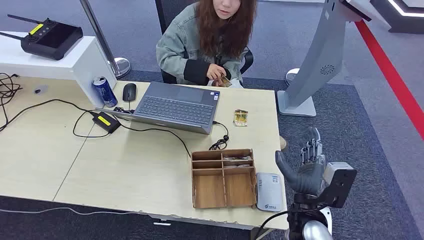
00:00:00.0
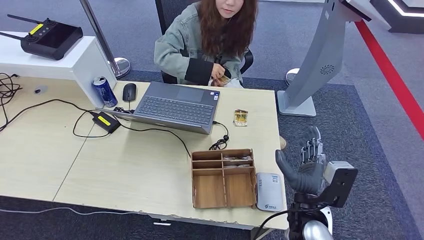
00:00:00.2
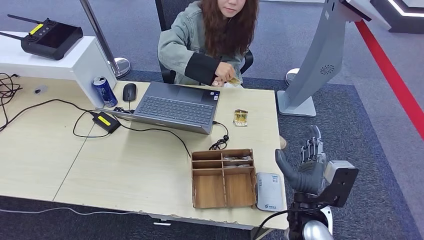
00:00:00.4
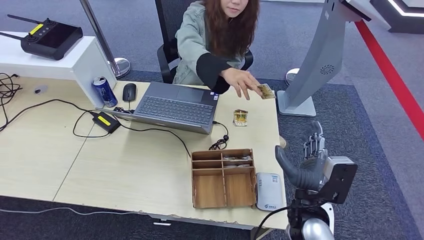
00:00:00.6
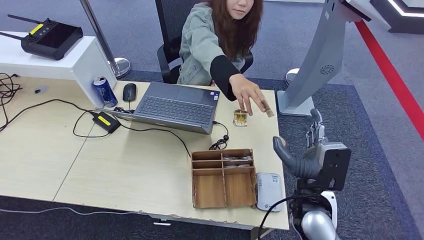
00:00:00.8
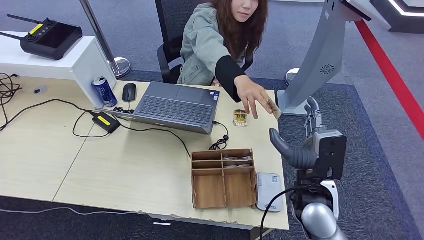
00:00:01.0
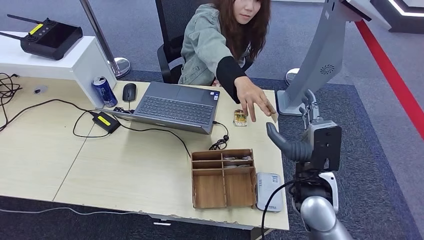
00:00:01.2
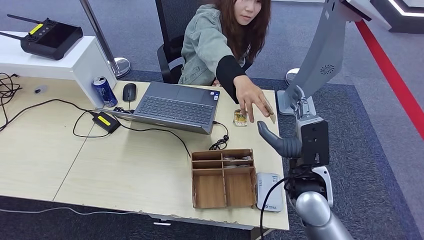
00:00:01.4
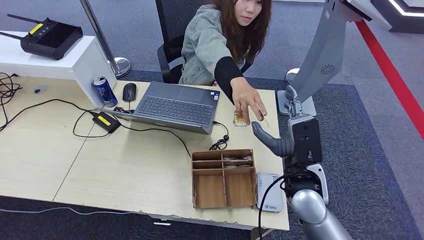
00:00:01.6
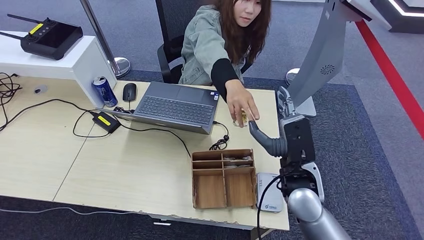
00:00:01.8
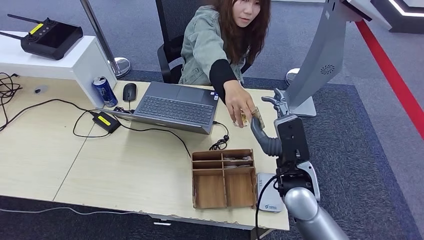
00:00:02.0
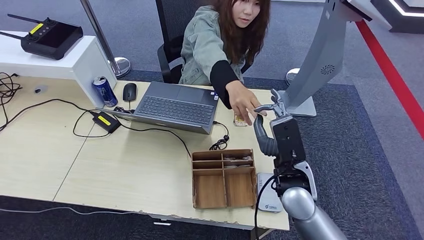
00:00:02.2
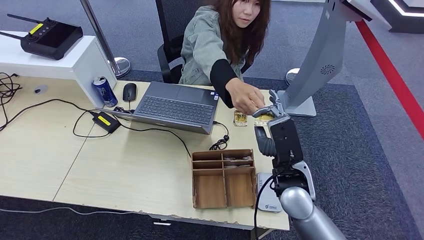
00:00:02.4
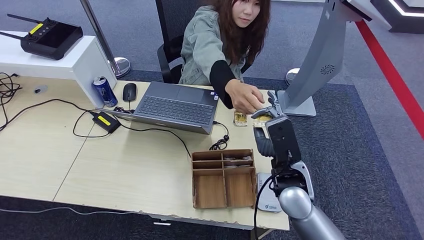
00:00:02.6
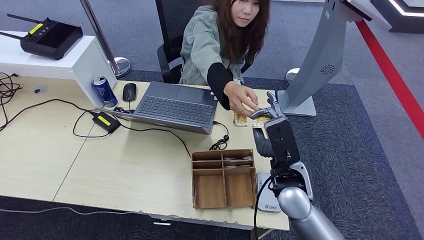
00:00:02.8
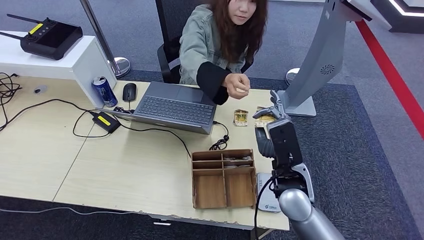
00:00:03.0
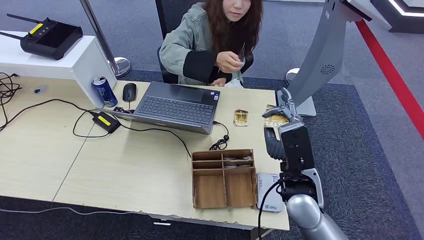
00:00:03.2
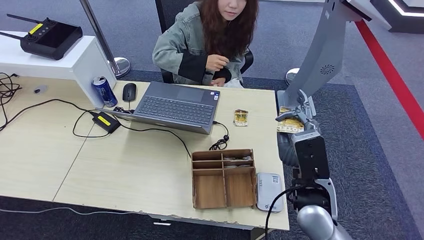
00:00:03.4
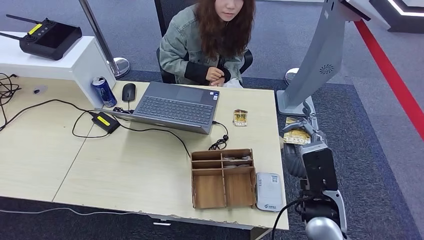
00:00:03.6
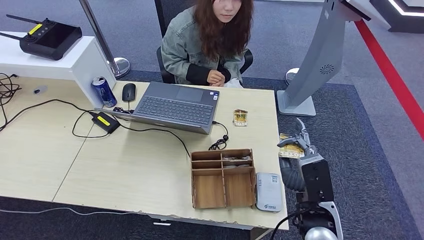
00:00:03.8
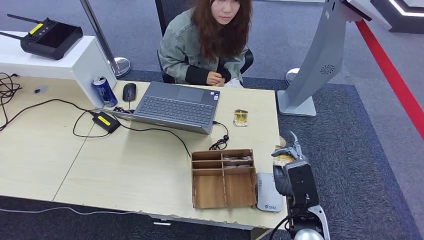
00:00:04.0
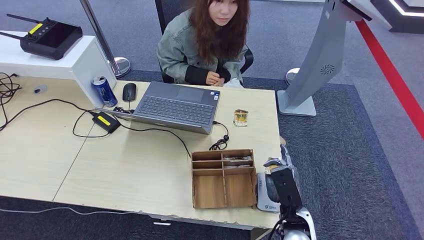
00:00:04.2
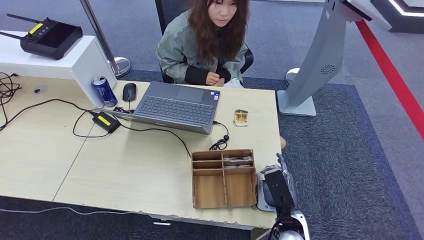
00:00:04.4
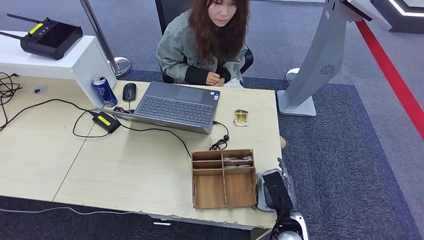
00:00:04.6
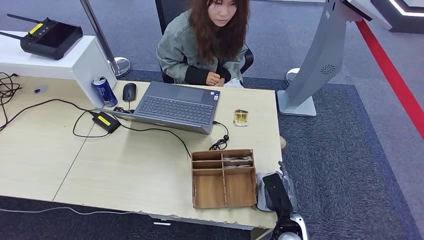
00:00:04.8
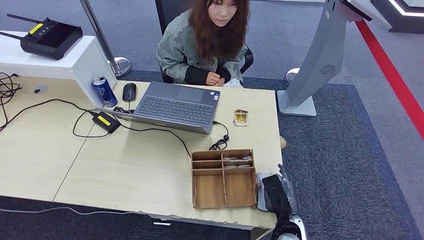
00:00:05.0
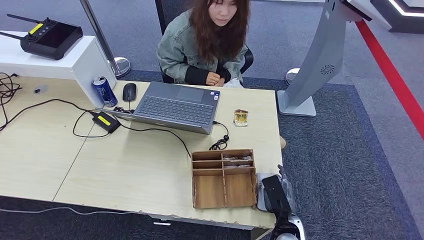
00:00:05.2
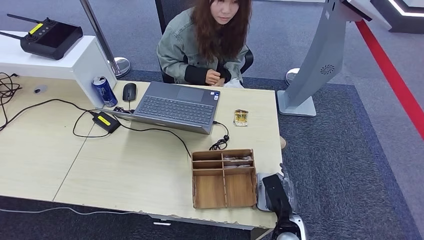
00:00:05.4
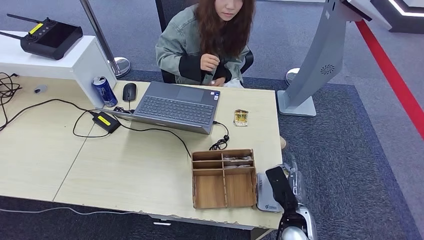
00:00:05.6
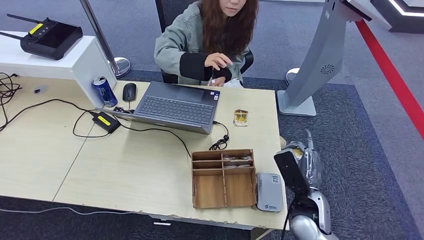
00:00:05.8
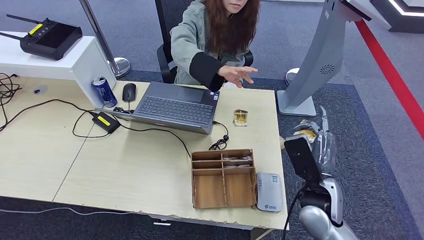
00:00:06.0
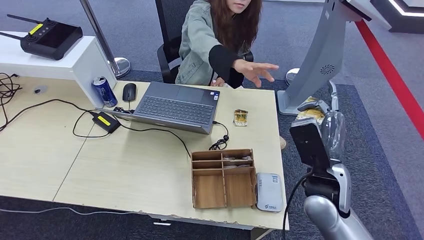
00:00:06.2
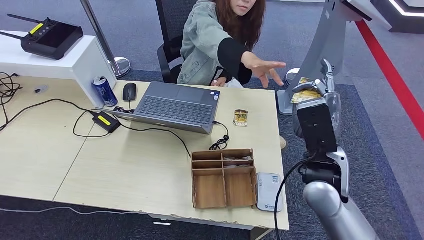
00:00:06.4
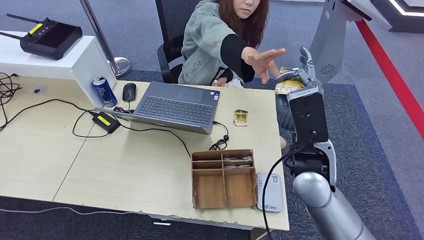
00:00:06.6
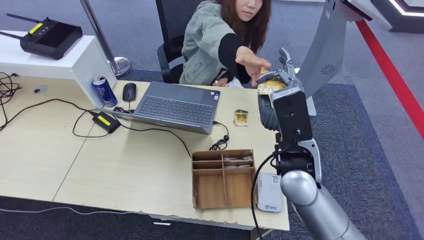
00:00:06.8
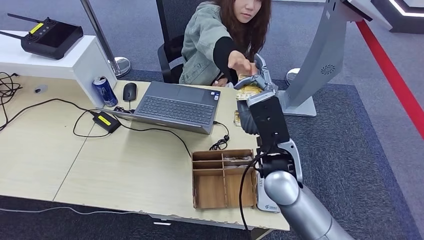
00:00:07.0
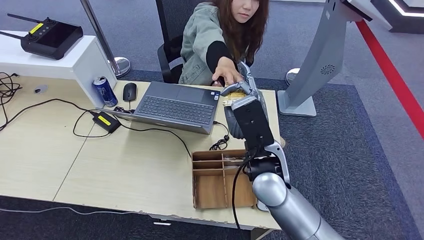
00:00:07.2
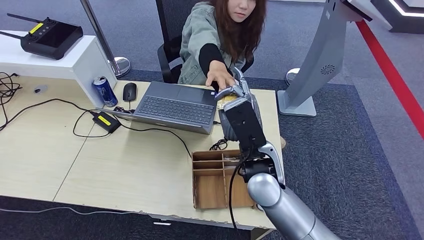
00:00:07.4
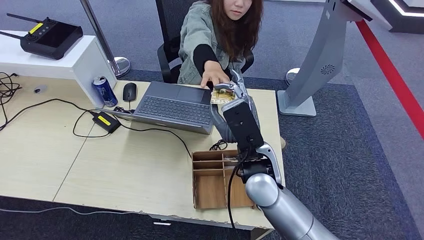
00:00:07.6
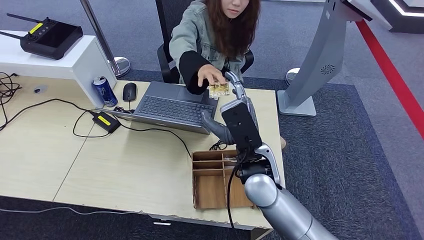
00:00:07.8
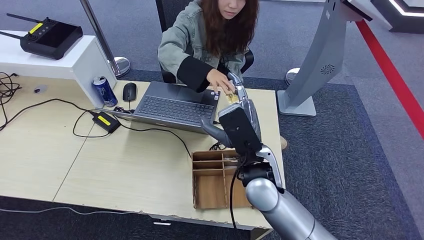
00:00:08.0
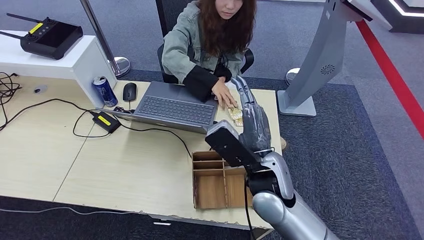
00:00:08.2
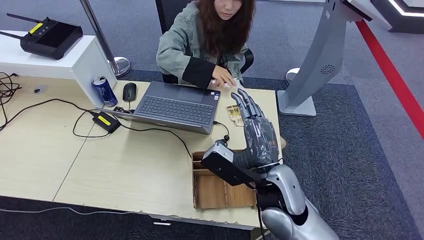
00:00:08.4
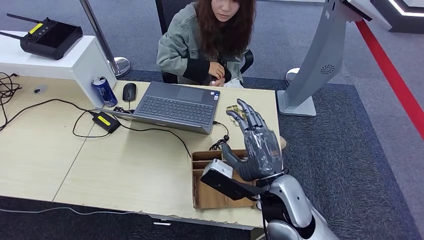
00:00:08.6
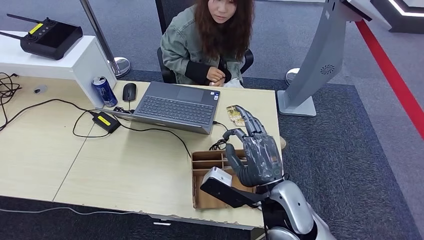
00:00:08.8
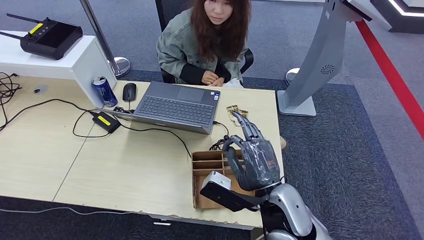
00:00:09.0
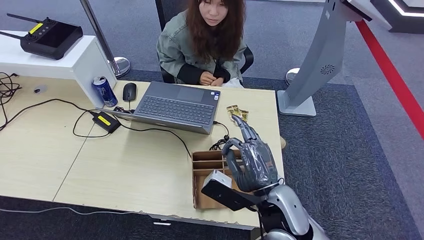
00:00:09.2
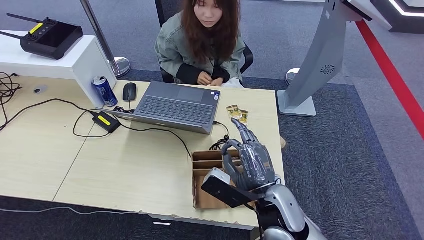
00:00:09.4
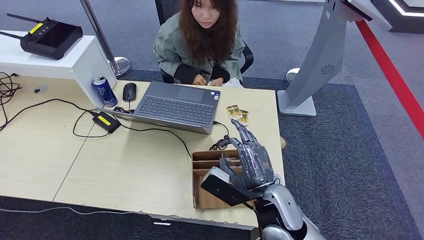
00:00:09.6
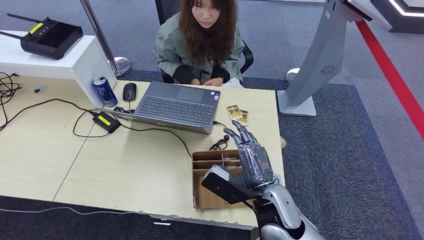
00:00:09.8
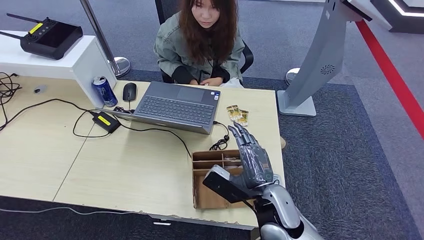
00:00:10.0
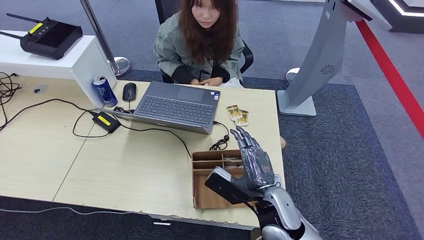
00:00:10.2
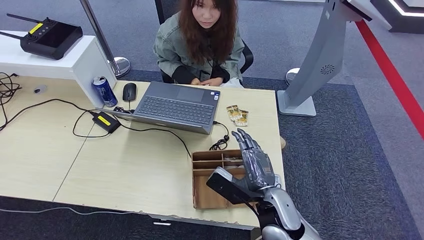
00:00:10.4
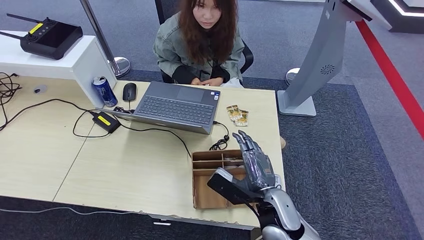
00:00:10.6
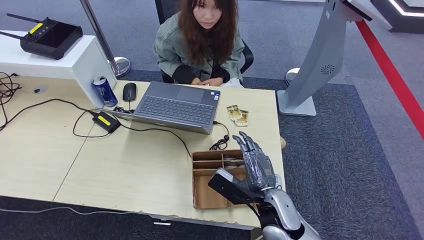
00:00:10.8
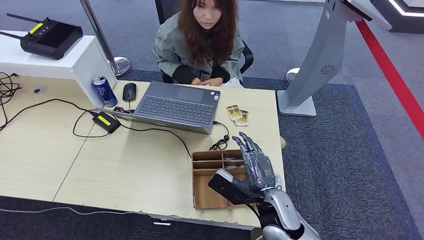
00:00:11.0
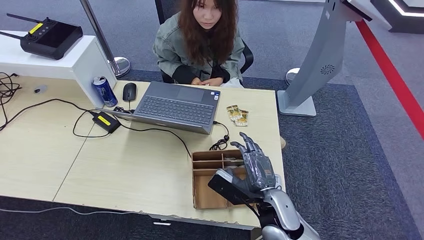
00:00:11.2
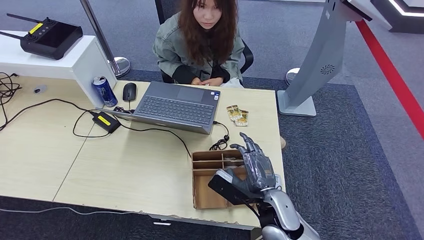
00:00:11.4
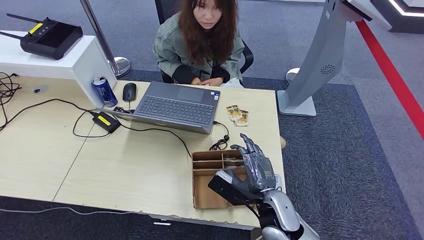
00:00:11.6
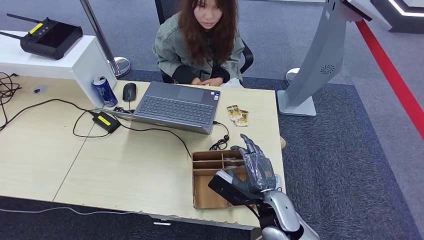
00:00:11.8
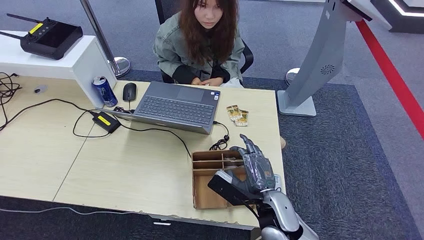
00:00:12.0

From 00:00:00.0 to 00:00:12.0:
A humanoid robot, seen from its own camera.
Step, from 00:00:00.0 to 00:00:03.0: Take the ID card from the person's hand.
Step, from 00:00:03.2 to 00:00:06.0: Place the ID card on the card reader.
Step, from 00:00:06.2 to 00:00:08.2: Hand the ID card to the person.
From 00:00:01.6 to 00:00:03.0: There are only small adjustments of the hands.
From 00:00:03.0 to 00:00:04.4: The right hand shifts about 15 cm downward and backward.
From 00:00:04.4 to 00:00:06.0: The right hand travels upward and forward by roughly 15 cm.
From 00:00:06.0 to 00:00:07.6: The right hand is displaced to the left and upward by some 20 cm.
From 00:00:07.6 to 00:00:09.0: The right hand moves backward, some 10 cm.
From 00:00:09.0 to 00:00:10.4: The right hand shifts about 5 cm downward.
From 00:00:10.4 to 00:00:12.0: The hands move only a little.

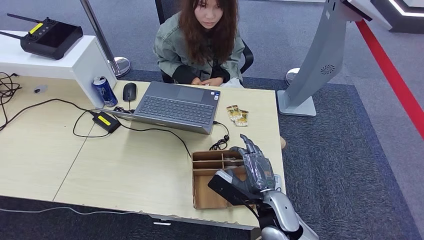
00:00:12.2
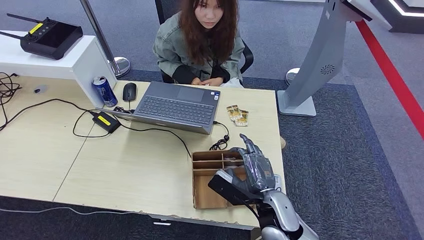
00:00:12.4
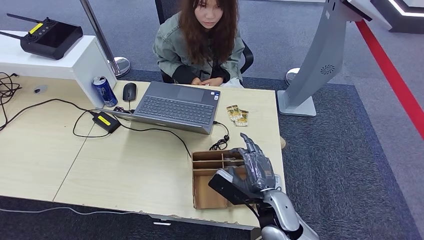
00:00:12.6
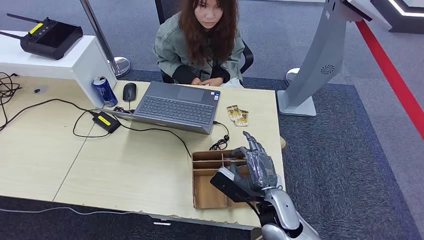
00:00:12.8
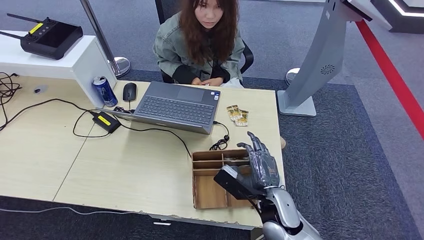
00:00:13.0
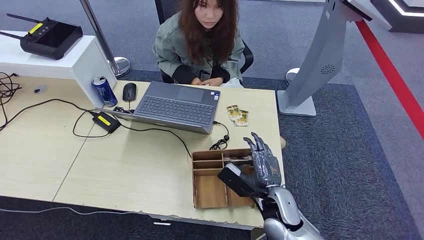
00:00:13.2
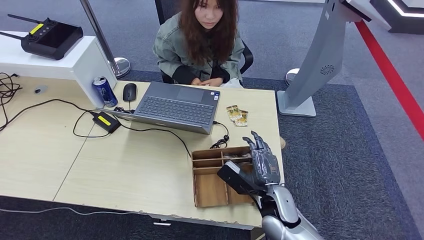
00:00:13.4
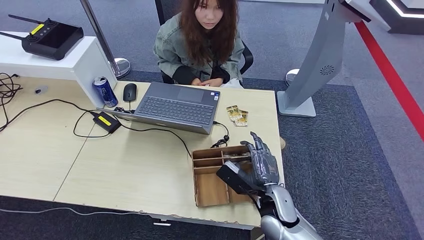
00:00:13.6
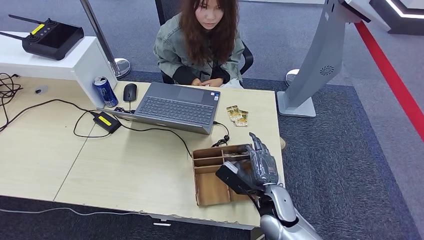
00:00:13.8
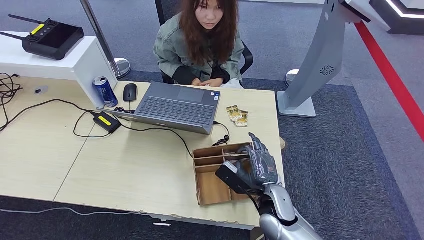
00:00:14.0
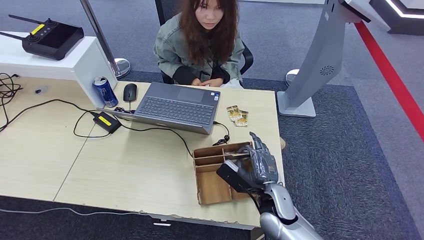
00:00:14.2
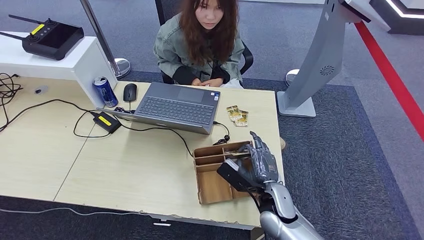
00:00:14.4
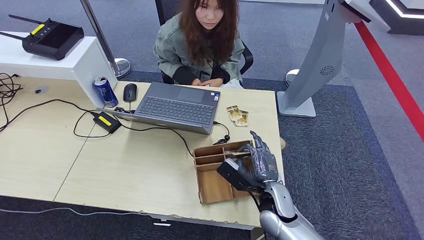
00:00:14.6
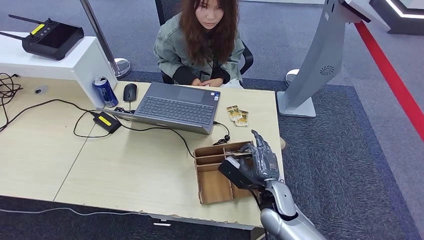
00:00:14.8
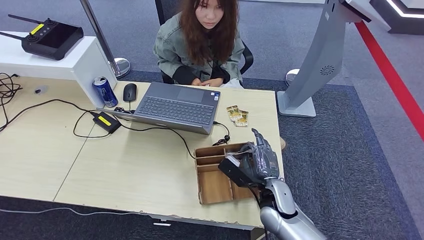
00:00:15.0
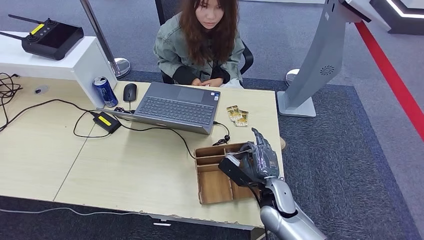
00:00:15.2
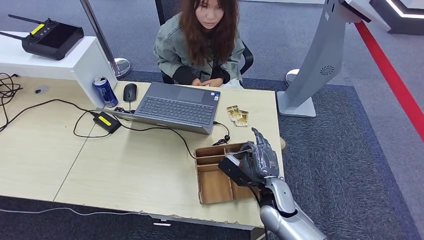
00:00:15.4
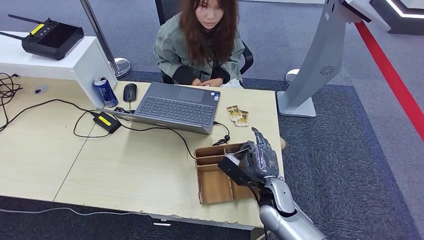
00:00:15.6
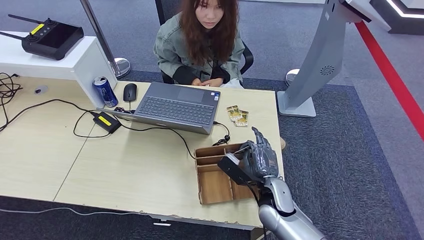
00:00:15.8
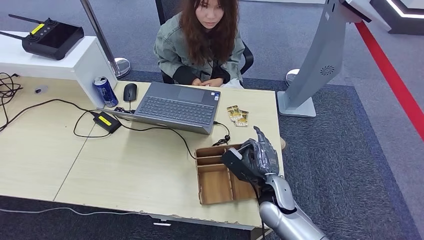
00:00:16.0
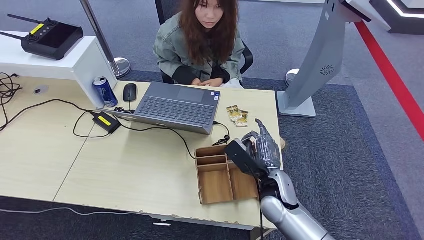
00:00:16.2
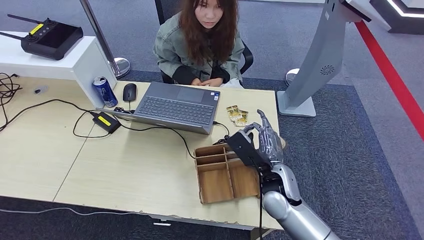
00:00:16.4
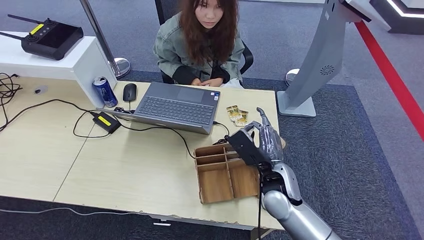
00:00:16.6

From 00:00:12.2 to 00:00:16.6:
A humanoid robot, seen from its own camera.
Step, from 00:00:12.2 to 00:00:14.8: Pick up the room key from the key card box.
From 00:00:12.2 to 00:00:15.2: The hands stay close to where they were, moving slightly.
From 00:00:15.2 to 00:00:16.6: The right hand shifts approximately 5 cm upward.
